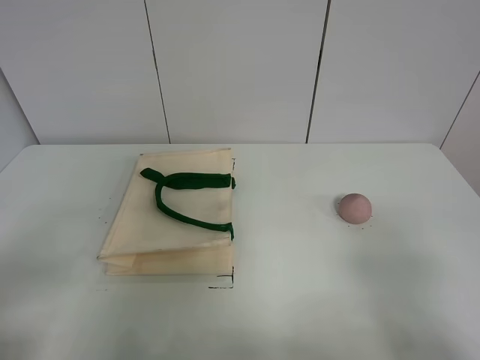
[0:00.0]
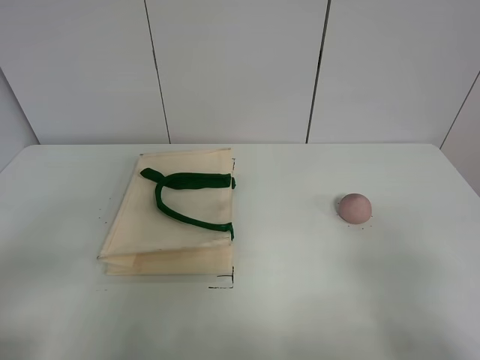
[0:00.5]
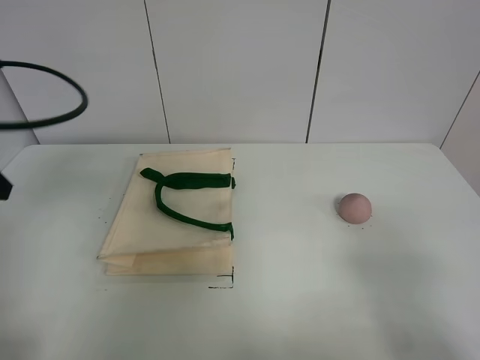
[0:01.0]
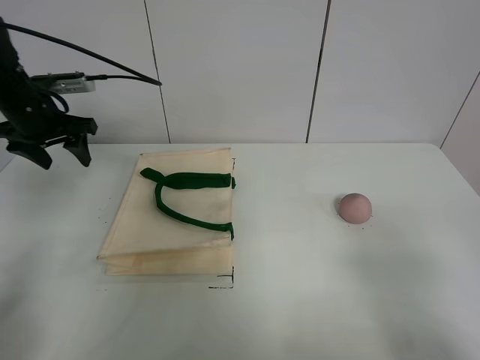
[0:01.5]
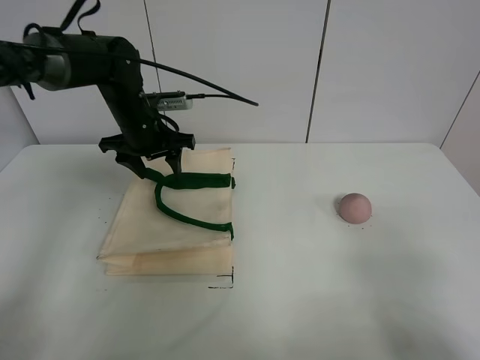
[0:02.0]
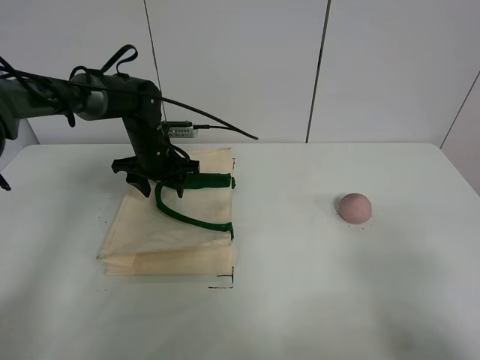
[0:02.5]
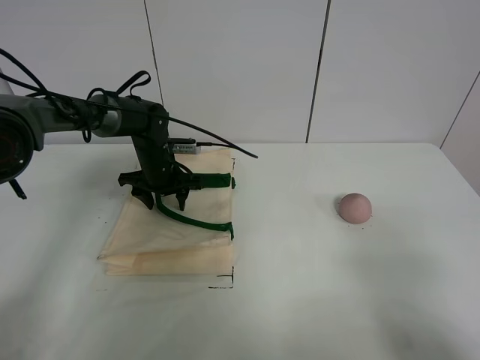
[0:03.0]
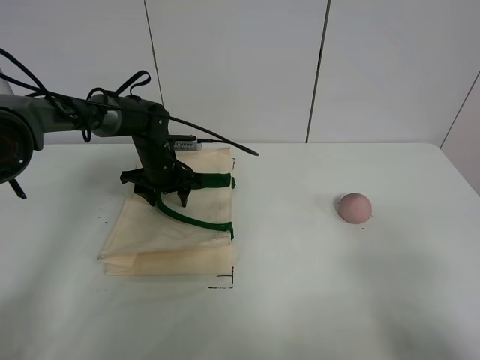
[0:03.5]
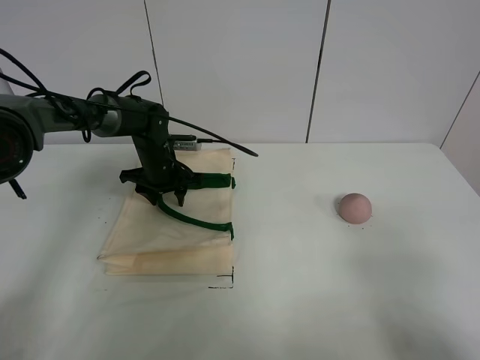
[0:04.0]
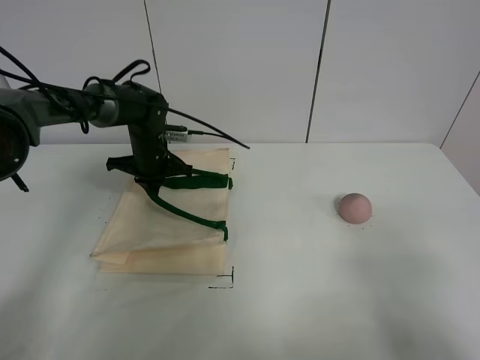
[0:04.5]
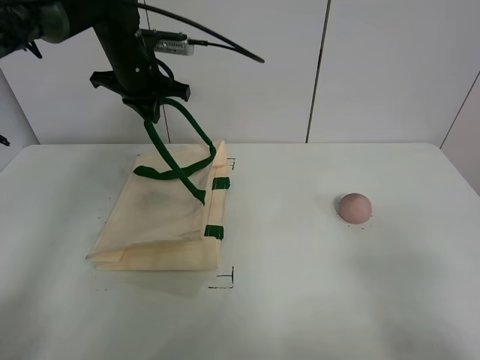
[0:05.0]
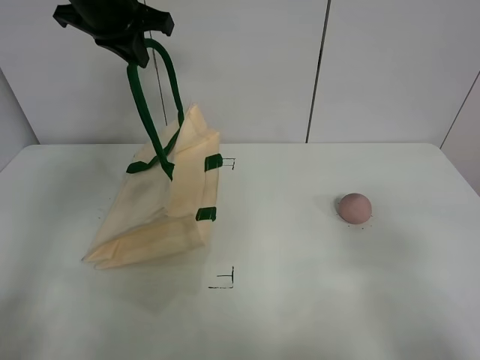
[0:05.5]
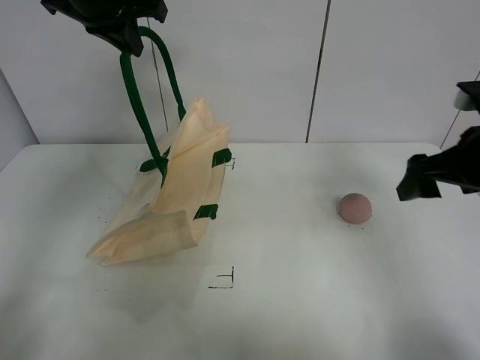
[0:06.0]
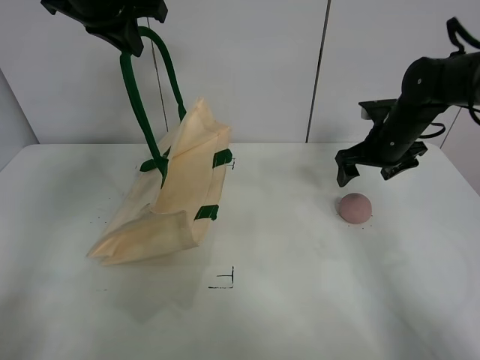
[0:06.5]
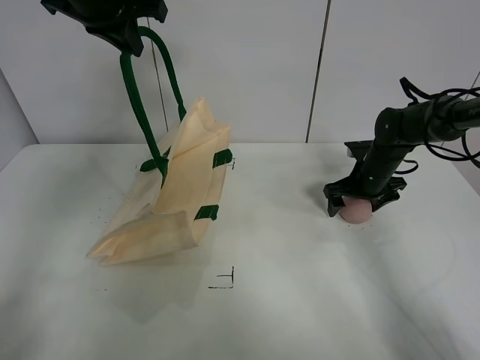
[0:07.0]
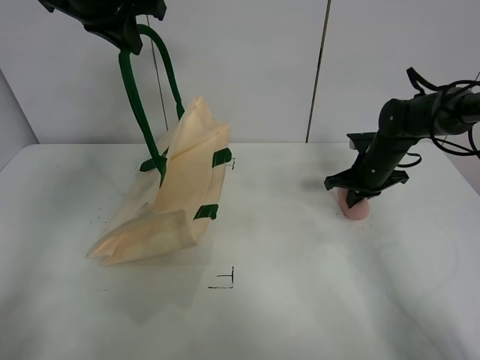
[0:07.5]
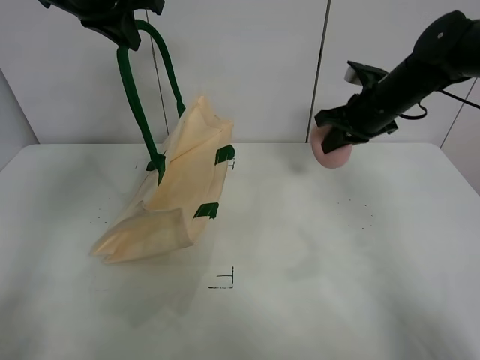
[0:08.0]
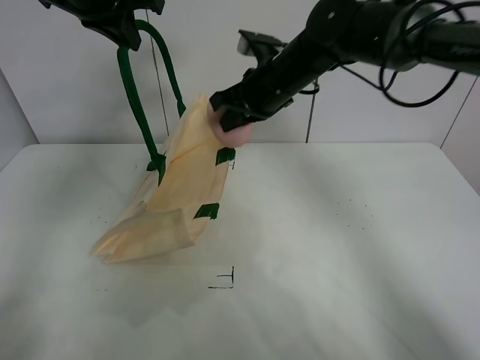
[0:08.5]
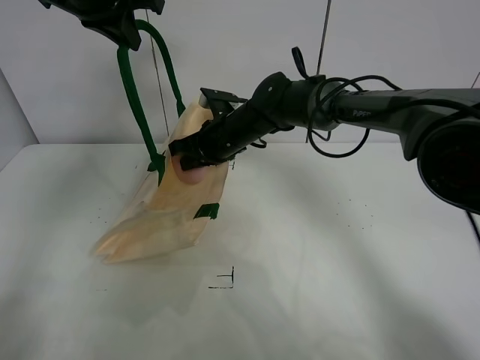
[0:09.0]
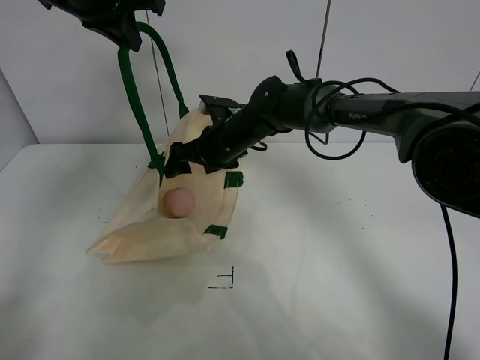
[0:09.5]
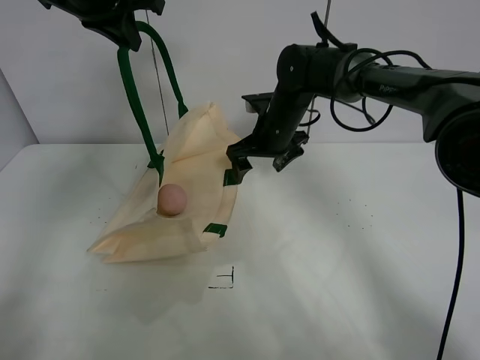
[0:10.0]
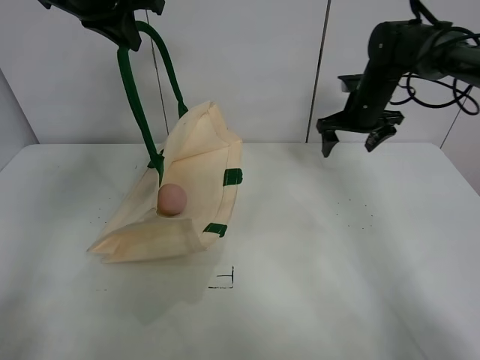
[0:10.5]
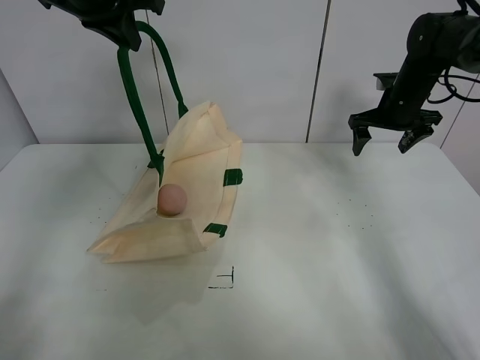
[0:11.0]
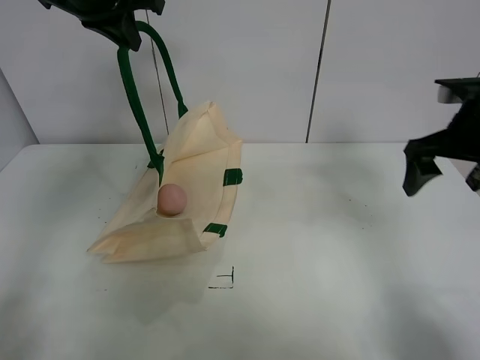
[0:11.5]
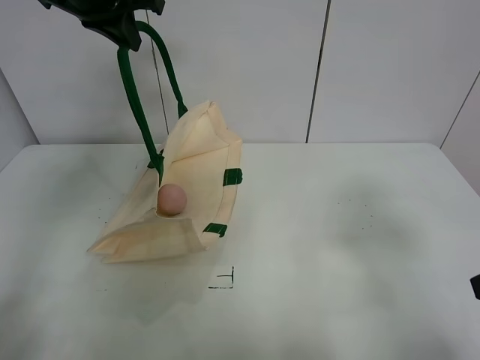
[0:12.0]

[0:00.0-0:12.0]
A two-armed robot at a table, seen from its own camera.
Task of the whole recording: open the white linen bag and put the peach in the bag.
Step, 0:00.0 to 0:05.5: Lift the handbag with left gripper.
Step, 0:06.0 to 0:07.5: Grasp the peach with right gripper.
Step, 0:08.0 to 0:09.5: Place the peach in the handbag with right gripper.
0:00.0 to 0:02.0: The left gripper moves forward, roughly 40 cm.
0:02.0 to 0:04.0: The left gripper goes approximately 10 cm downward.
0:04.0 to 0:06.0: The left gripper moves upward, some 30 cm, and closes its fingers. The right gripper is displaced forward by some 25 cm.
0:06.0 to 0:08.0: The right gripper goes some 15 cm forward and to the left, travels downward and back again, roughly 15 cm each way, and closes up.
0:08.0 to 0:10.0: The right gripper travels to the left by about 15 cm, and opens.
0:10.0 to 0:12.0: The right gripper heads backward and to the right, covering roughly 40 cm.

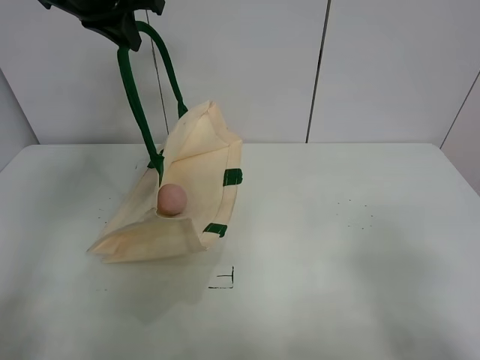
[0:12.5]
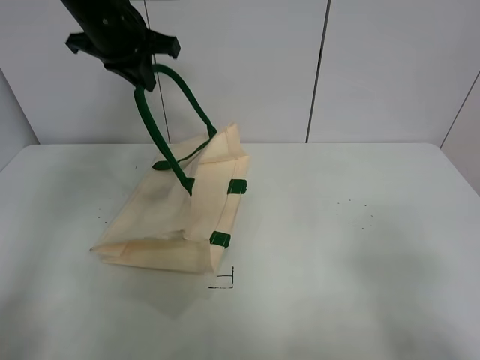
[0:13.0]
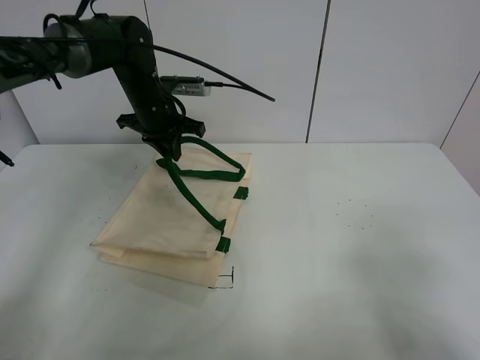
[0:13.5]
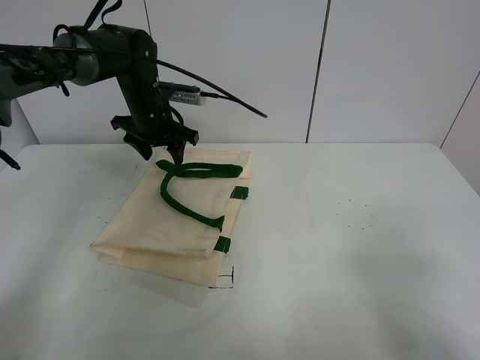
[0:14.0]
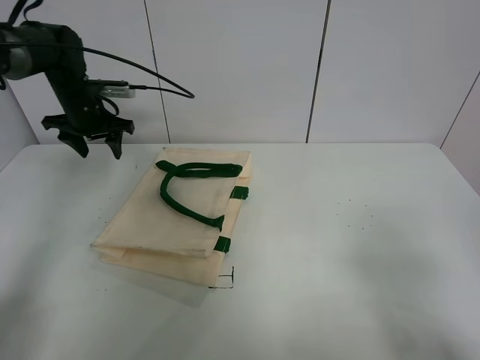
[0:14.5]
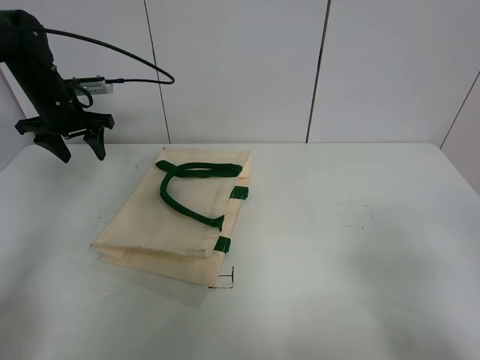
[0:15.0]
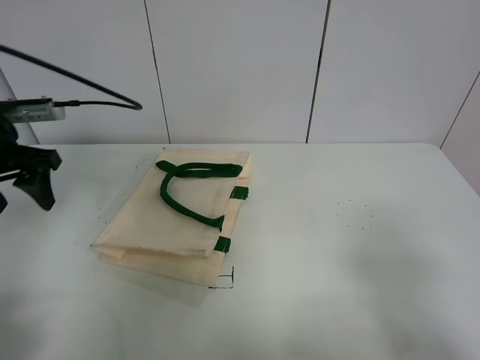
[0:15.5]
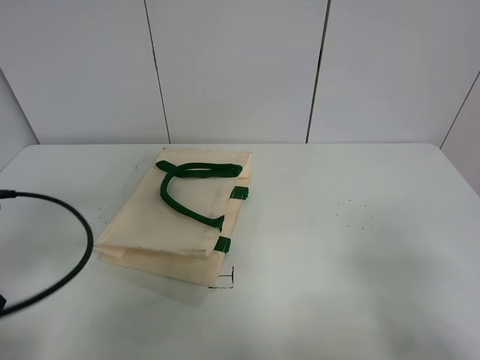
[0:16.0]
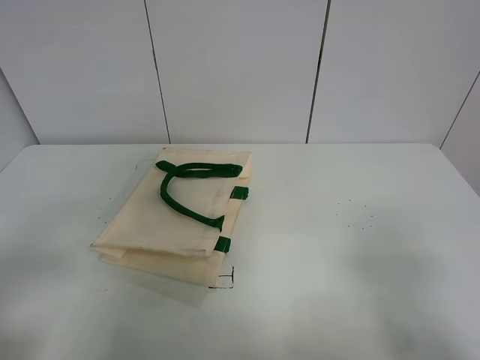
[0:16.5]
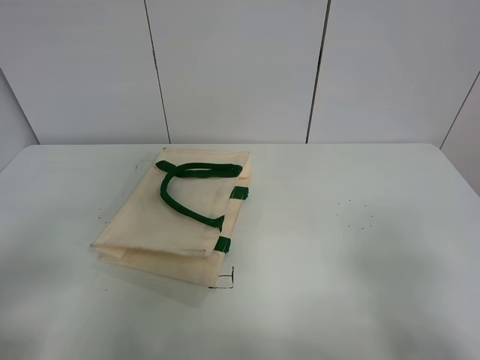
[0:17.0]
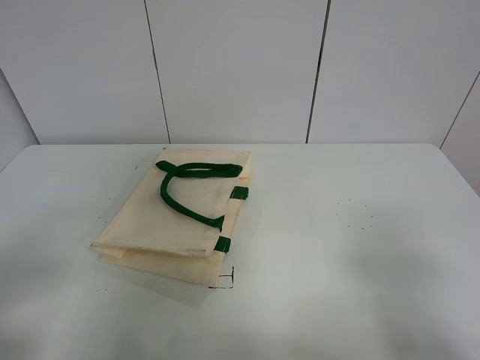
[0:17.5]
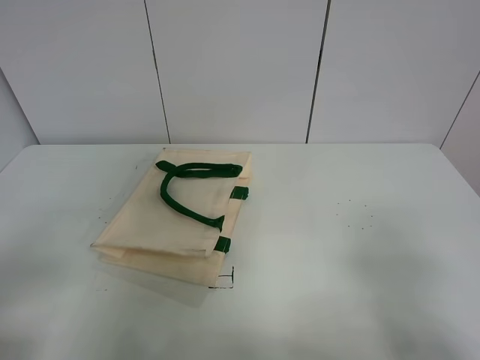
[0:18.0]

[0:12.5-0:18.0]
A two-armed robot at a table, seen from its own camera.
Task of the whole recording: open the white linen bag and put the peach in the bag.
0:12.5 to 0:14.5: The left gripper travels downward, to the left and forward by some 25 cm, and opens.
0:14.5 to 0:16.0: The left gripper goes roughly 35 cm backward.
0:16.0 to 0:18.0: The left gripper heads backward, covering some 10 cm.

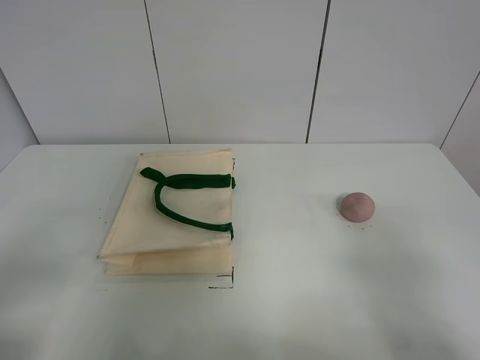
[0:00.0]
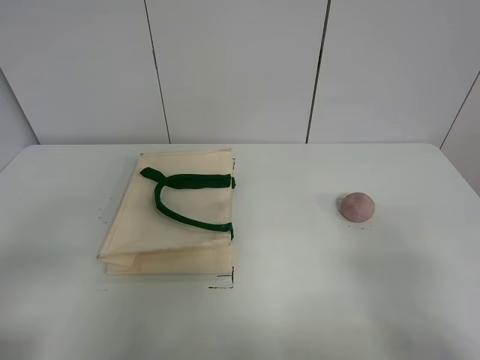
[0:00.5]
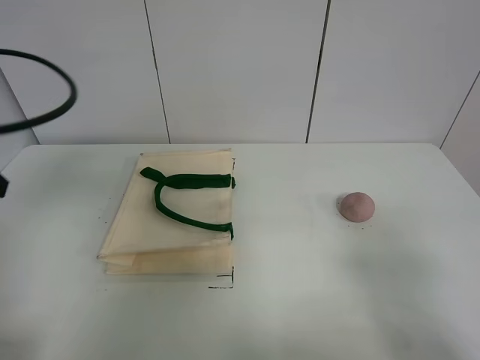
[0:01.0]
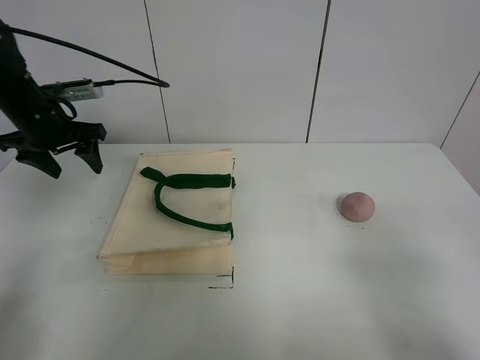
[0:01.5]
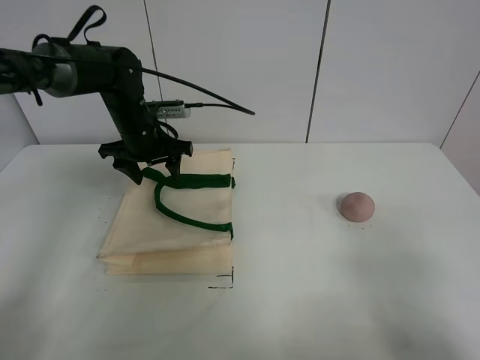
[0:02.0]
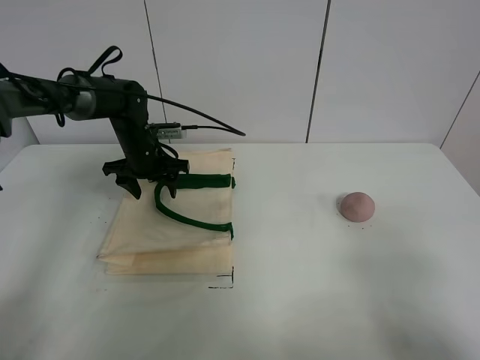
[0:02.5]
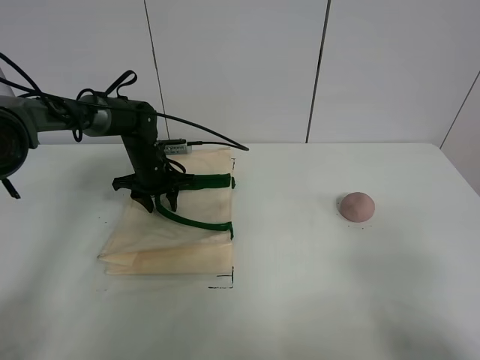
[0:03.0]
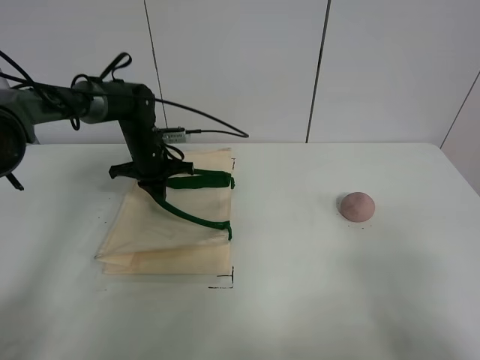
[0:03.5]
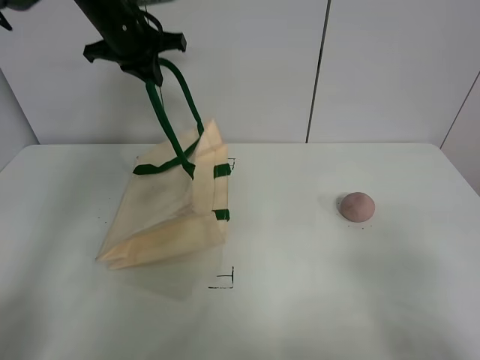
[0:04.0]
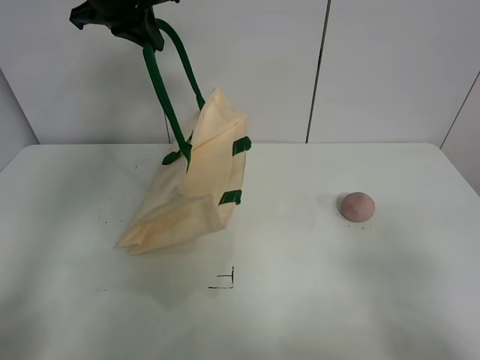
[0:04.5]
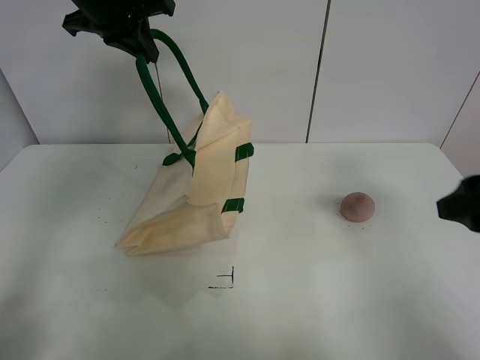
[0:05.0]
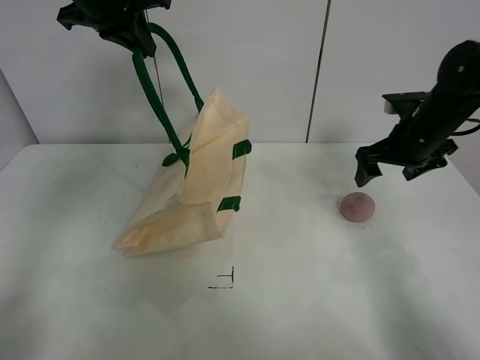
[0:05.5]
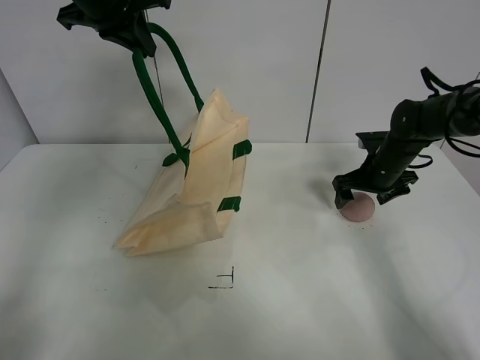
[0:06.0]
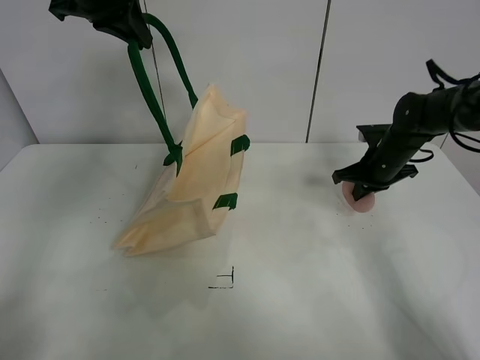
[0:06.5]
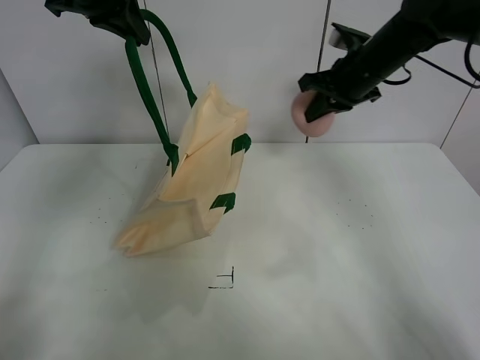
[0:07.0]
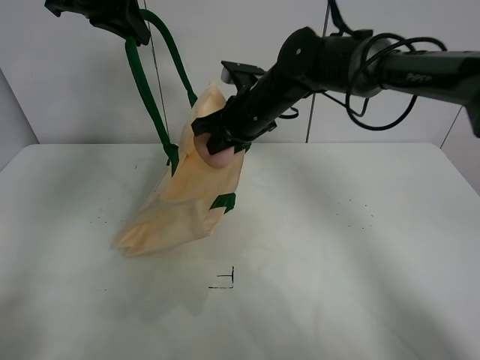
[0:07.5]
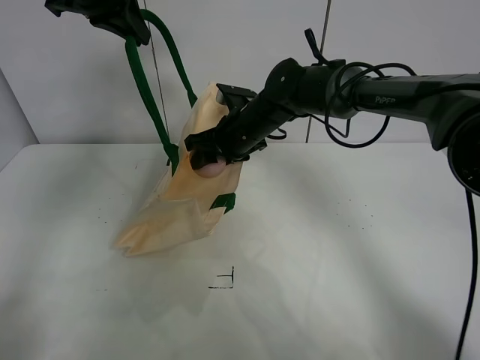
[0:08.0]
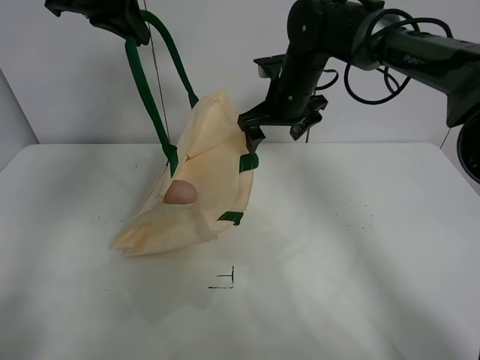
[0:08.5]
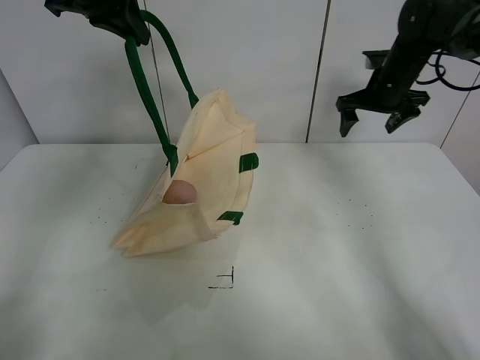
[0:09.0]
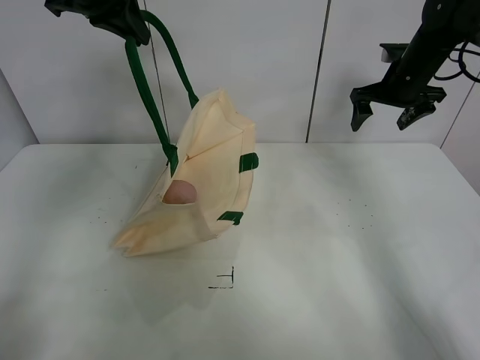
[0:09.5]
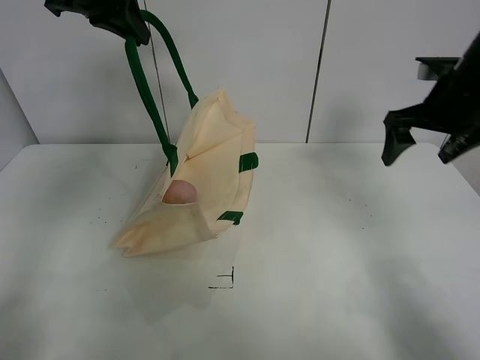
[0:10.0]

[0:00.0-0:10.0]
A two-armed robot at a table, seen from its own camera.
Task of the whole recording: open the white linen bag and put the peach in the bag.
Step, 0:00.0 to 0:04.0: Lift the handbag with left gripper.
Step, 0:04.5 to 0:06.0: Grasp the peach with right gripper.
Step, 0:06.5 to 0:08.0: Place the peach in the handbag with right gripper.
0:00.0 to 0:02.0: The left gripper is displaced forward by approximately 40 cm.
0:02.0 to 0:04.0: The left gripper is displaced upward by approximately 20 cm, and closes.
0:04.0 to 0:06.0: The left gripper ends up some 5 cm from where it was. Meanwhile the right gripper is displaced forward by roughly 40 cm.
0:06.0 to 0:08.0: The right gripper shifts roughly 25 cm to the left, and closes and opens again.
0:08.0 to 0:10.0: The right gripper shifts about 25 cm to the right.
